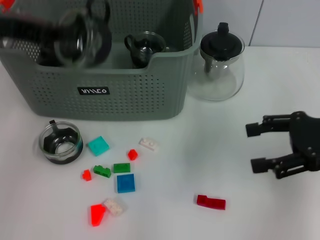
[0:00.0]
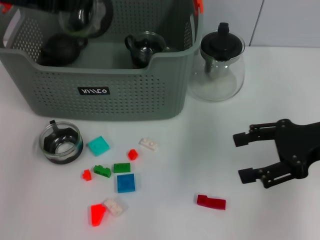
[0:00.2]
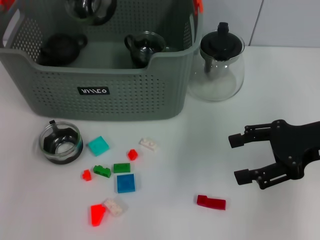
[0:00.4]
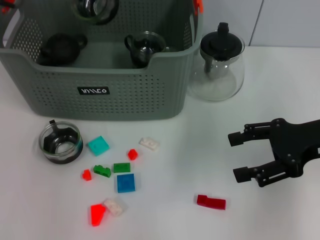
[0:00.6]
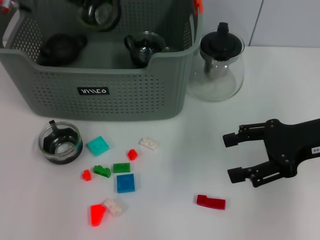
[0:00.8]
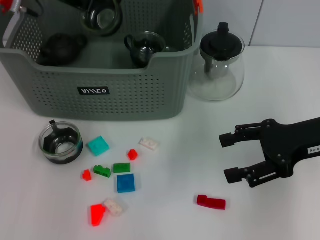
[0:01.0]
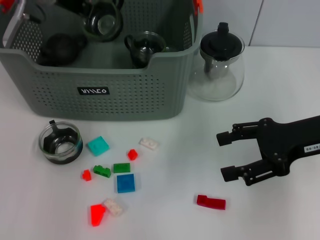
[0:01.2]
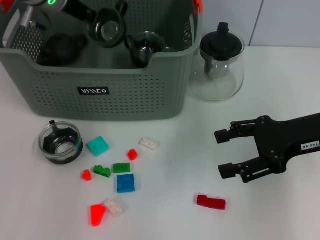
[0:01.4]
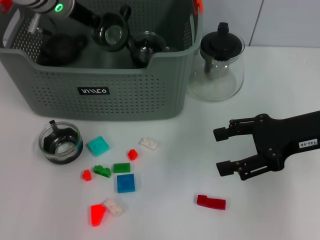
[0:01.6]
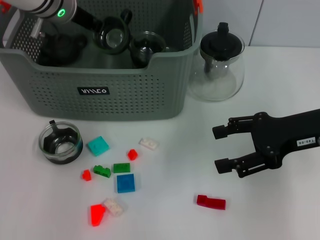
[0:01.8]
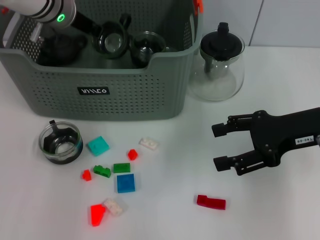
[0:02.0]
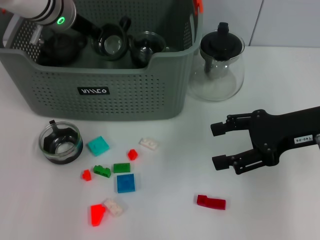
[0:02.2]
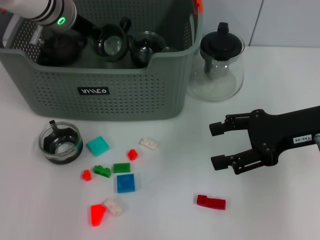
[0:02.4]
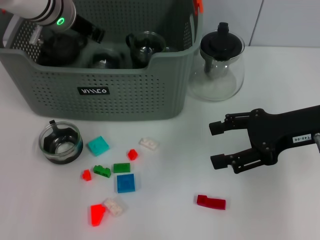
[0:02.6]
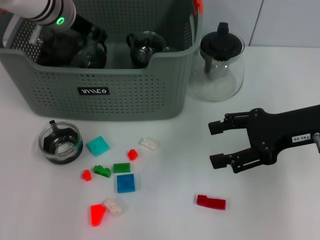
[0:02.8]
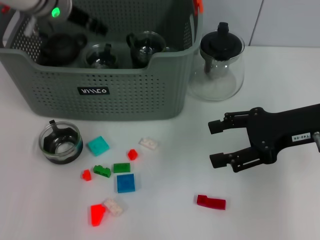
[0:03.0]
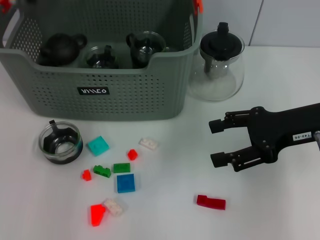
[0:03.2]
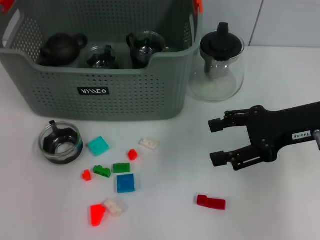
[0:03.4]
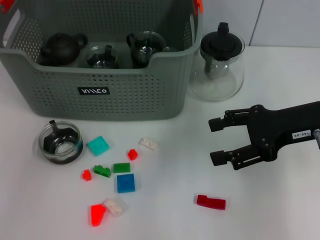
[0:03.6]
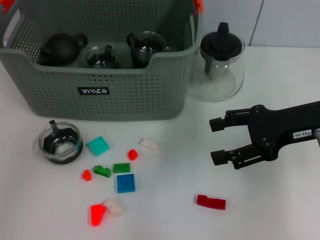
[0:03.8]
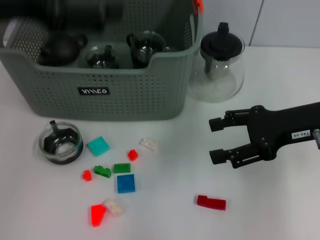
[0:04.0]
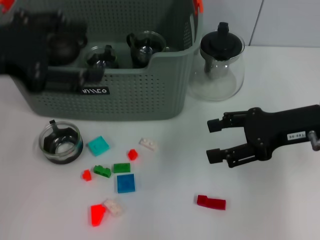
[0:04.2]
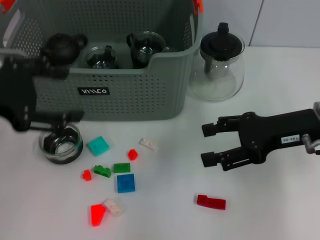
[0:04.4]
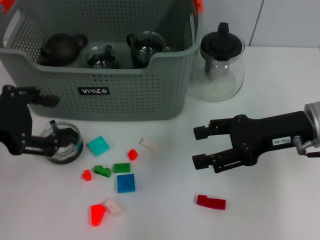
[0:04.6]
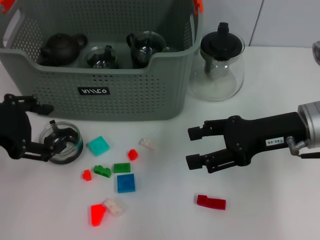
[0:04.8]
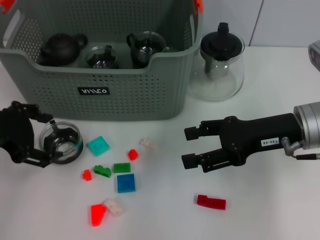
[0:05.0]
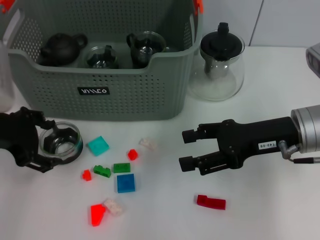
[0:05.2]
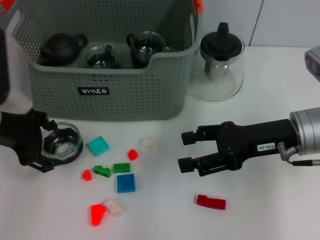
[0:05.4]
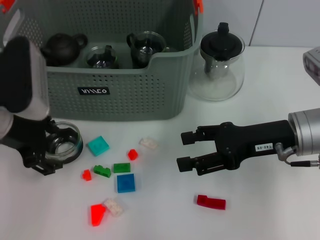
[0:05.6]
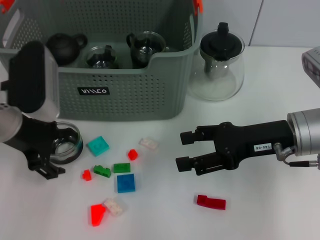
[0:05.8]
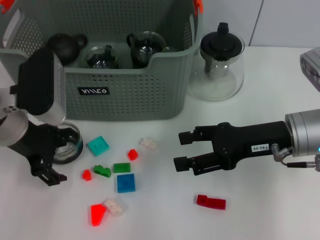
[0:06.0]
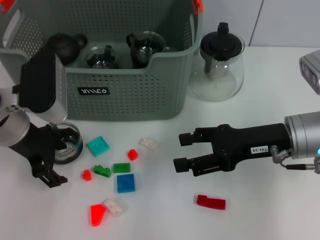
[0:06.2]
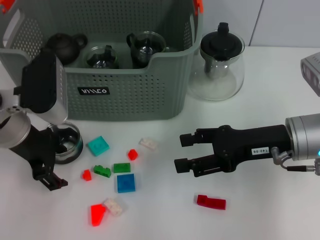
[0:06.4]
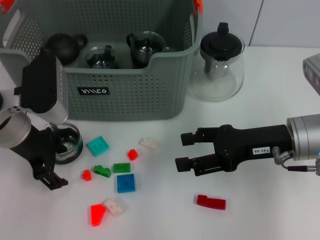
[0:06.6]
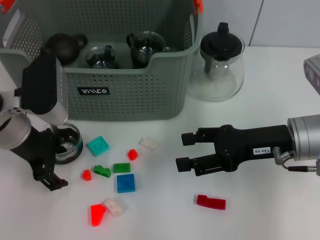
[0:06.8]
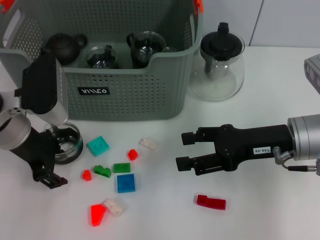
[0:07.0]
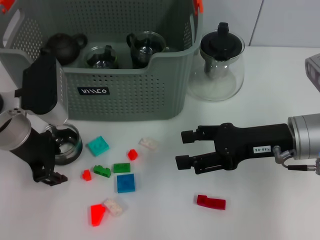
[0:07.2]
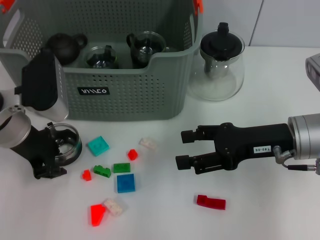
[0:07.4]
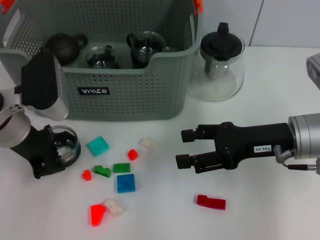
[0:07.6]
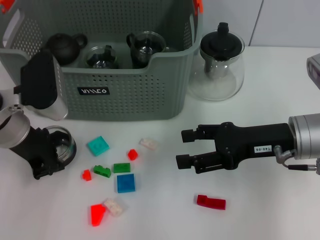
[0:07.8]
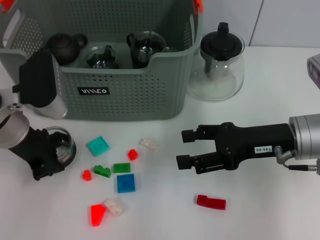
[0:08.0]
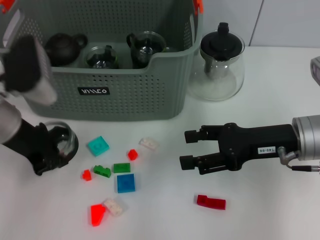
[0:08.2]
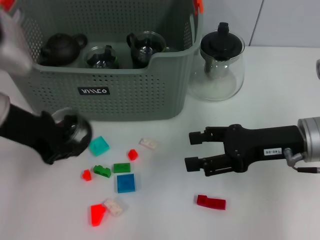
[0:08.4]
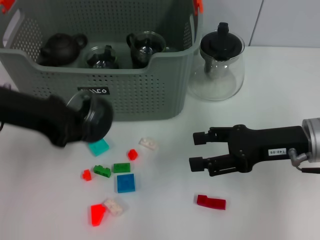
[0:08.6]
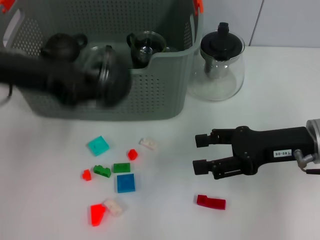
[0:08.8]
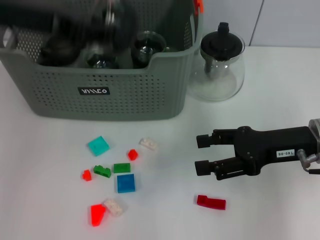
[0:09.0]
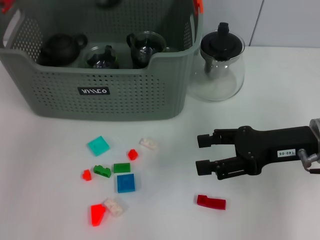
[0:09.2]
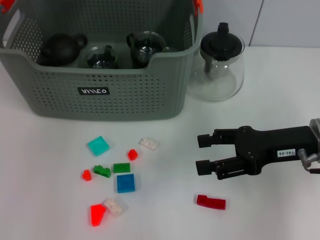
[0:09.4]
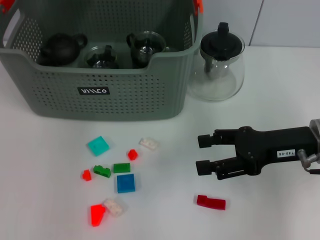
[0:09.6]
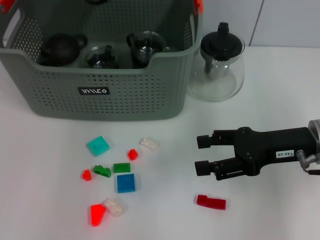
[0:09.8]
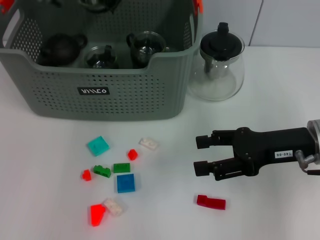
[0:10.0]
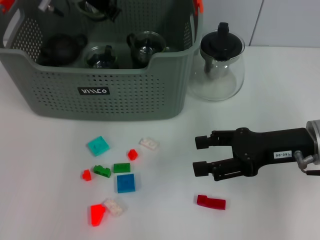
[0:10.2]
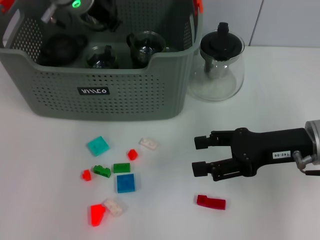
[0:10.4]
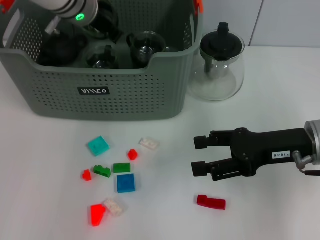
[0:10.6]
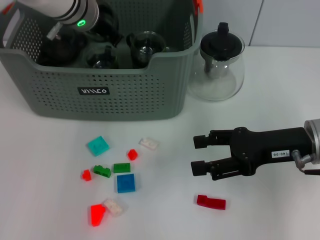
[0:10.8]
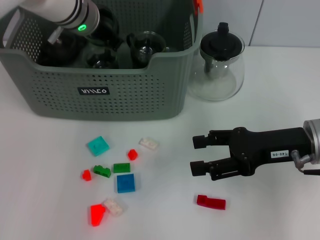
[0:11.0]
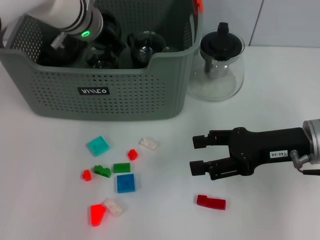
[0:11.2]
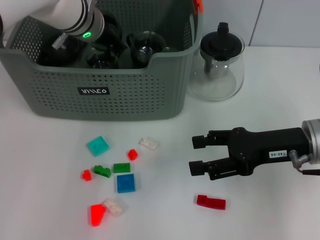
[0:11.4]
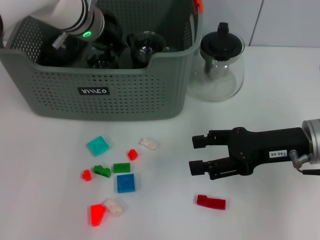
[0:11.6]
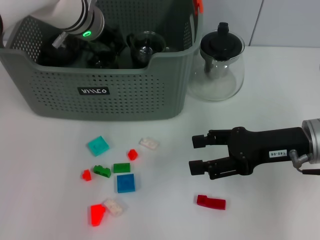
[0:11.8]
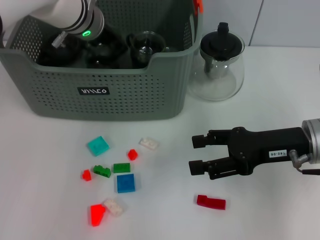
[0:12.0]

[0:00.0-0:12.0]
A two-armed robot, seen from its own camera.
Task of the whole recording: pick up the teacup on the table and place it into the storage bin, pick up the block on the table and place it into the storage bin.
Step, 0:00.0 to 0:03.2: Place the cup in the storage box with left gripper.
Step, 0:03.4 to 0:07.4: Grasp the cup with left gripper.
0:00.0 to 0:01.6: The left gripper goes roughly 20 cm forward, to the right and downward.
0:01.6 to 0:03.0: There are only small adjustments of the grippers.
0:03.0 to 0:04.4: The left gripper heads backward and to the left, covering about 25 cm, and opens.
0:04.4 to 0:06.0: The left gripper travels downward, forward and to the right by some 15 cm.
0:06.0 to 0:07.6: The left gripper closes up.
0:07.6 to 0:09.0: The left gripper heads upward, covering roughly 15 cm.
0:09.0 to 0:10.4: The left gripper moves forward, to the right and downward, roughly 20 cm.
0:10.4 to 0:12.0: The grippers stay close to where they were, moving slightly.

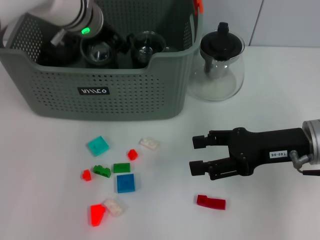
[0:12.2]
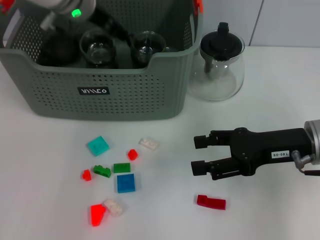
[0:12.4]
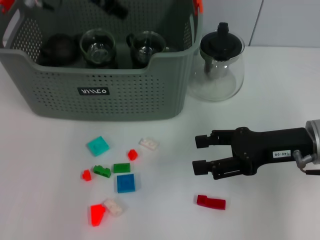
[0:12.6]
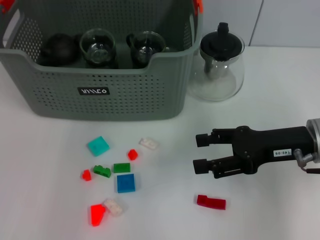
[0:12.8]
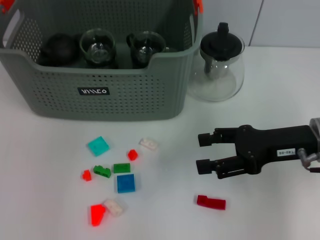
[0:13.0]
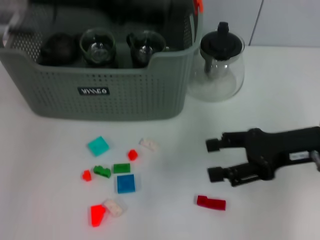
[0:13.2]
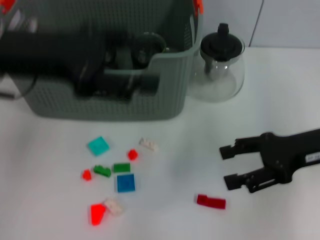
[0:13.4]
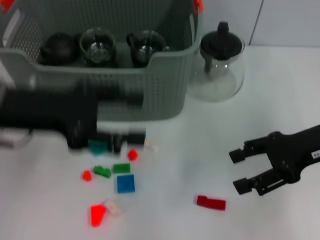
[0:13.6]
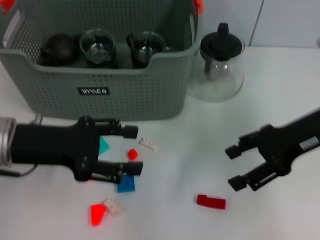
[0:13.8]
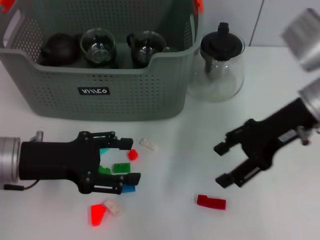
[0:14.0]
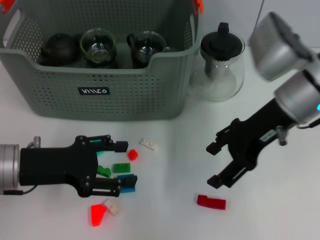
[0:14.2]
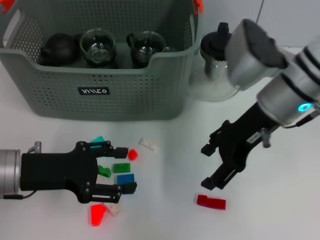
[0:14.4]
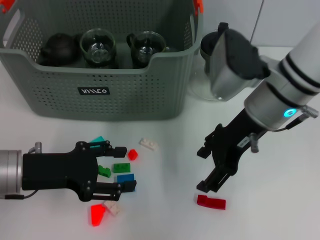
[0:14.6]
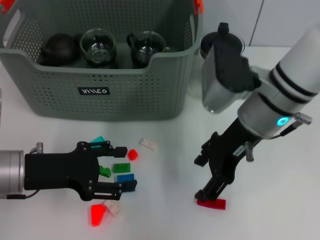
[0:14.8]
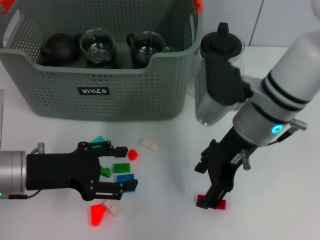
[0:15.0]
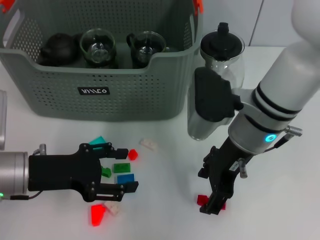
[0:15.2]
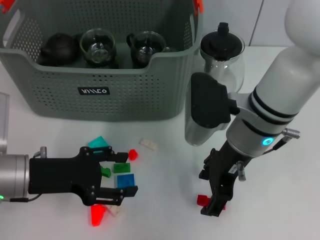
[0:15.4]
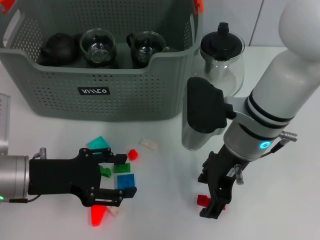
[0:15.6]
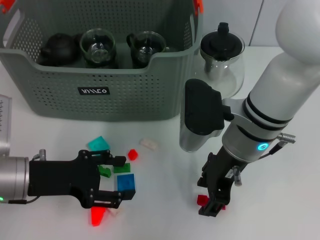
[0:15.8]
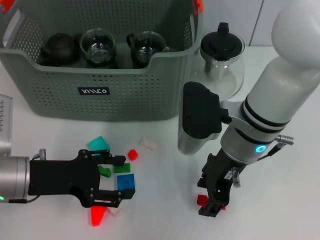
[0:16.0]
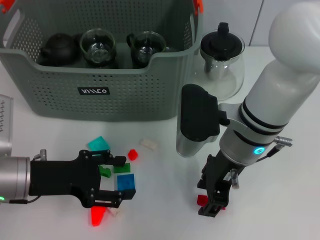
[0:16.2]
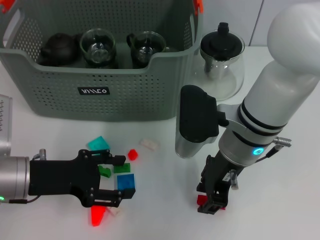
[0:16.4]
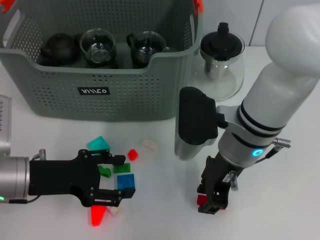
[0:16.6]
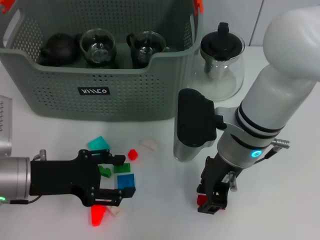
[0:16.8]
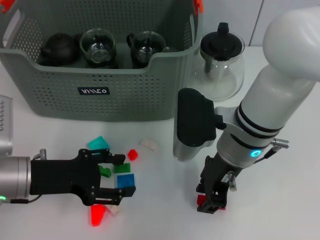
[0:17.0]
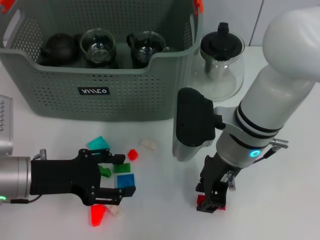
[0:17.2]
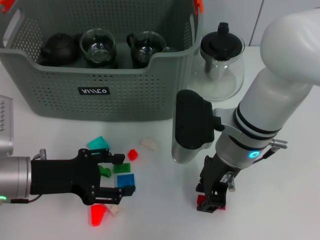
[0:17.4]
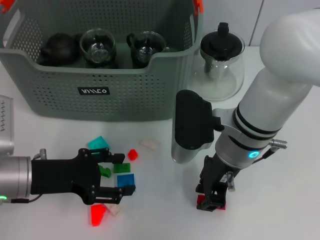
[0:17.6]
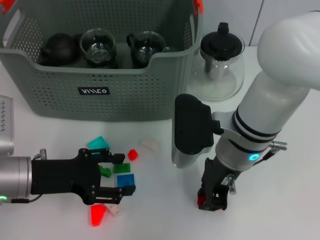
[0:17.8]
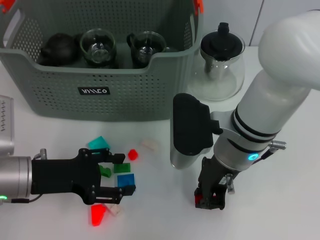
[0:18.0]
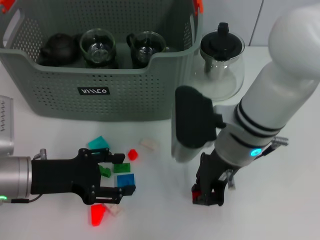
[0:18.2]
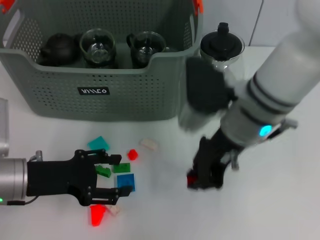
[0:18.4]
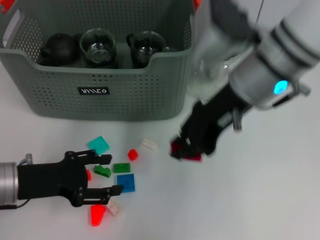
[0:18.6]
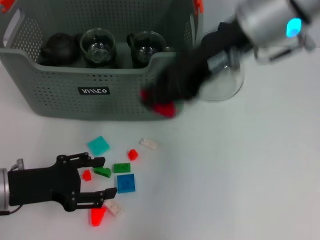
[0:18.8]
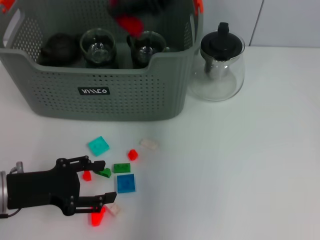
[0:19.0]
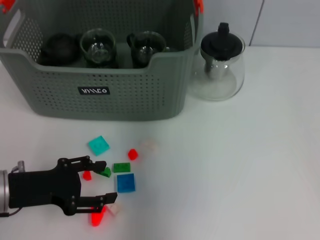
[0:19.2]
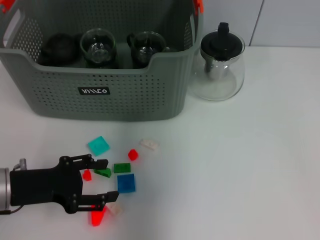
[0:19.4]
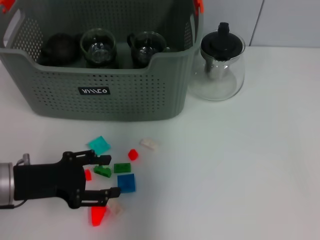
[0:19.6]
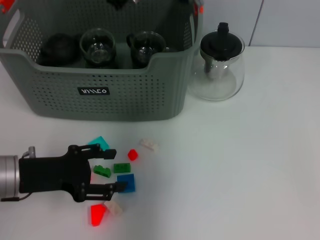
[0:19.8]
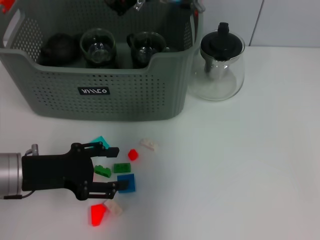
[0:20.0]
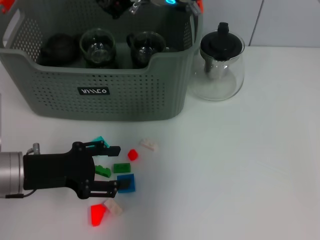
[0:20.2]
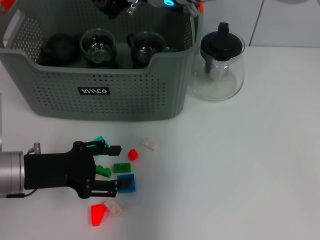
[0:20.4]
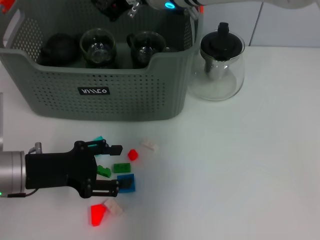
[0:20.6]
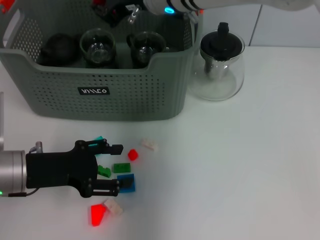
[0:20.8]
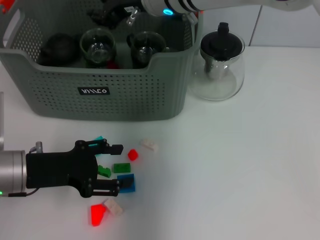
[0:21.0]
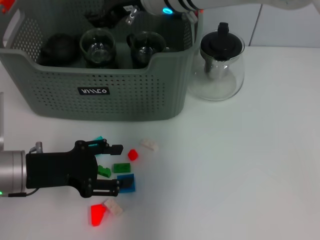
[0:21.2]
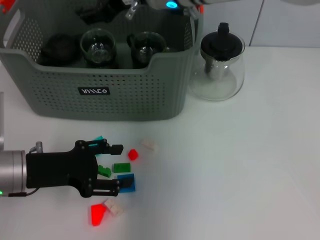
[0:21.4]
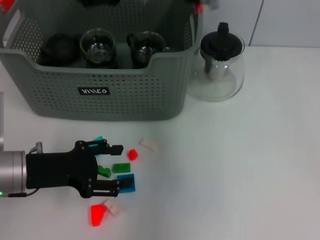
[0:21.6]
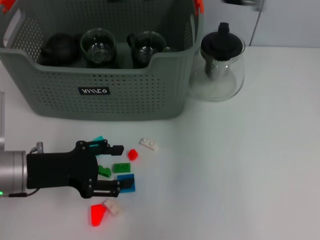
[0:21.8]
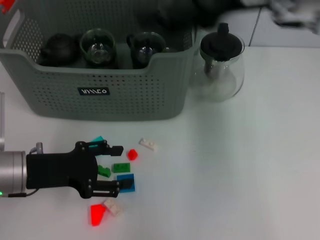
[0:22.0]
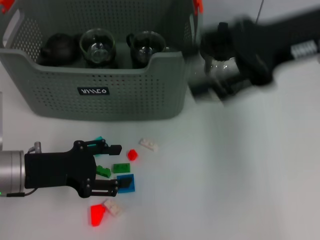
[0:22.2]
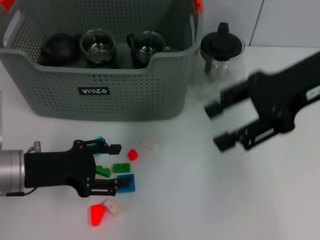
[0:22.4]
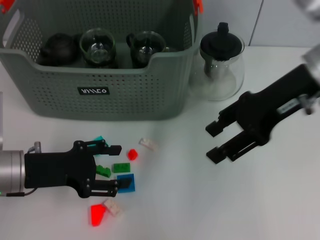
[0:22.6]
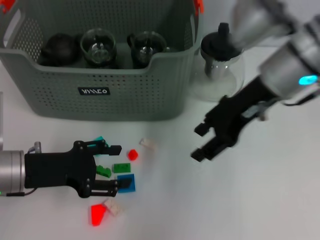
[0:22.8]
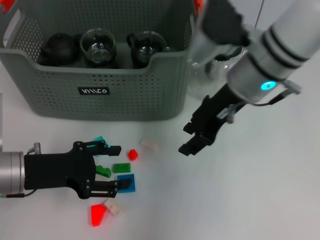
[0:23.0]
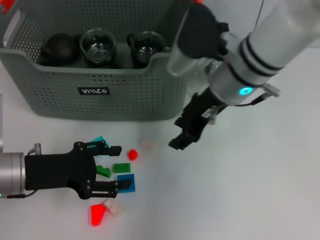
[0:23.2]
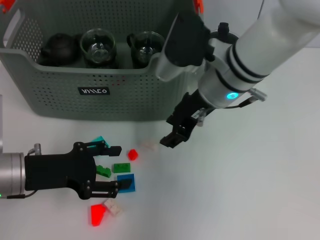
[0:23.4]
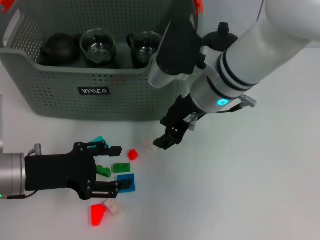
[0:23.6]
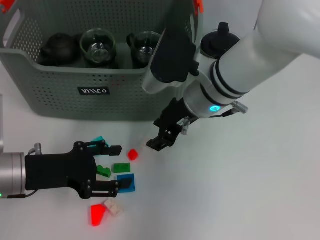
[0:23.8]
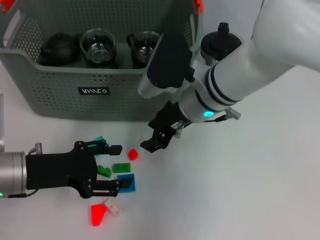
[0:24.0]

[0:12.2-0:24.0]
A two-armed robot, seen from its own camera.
Task of the whole recording: pick up the teacup on the table and place it into the storage bin, pick up the block on the table and place it into the storage bin.
Step, 0:12.8 to 0:18.0: Grasp the red block with right gripper.
Step, 0:18.2 to 0:21.8: Place the red block in the storage box with right gripper.
0:12.2 to 0:13.6: The left gripper goes some 20 cm backward and to the left, and opens up. Meanwhile the right gripper moves about 5 cm.
0:13.6 to 0:15.2: The left gripper moves downward, some 10 cm, while the right gripper is displaced to the left by about 15 cm.
0:15.2 to 0:16.6: The right gripper closes up.
0:16.6 to 0:18.2: The right gripper closes.
0:18.2 to 0:19.6: The right gripper is displaced forward, upward and to the left by approximately 20 cm.
0:19.6 to 0:21.0: The grippers move only a little.
0:21.0 to 0:22.6: The right gripper heads to the right and backward, covering approximately 20 cm, and opens up.
0:22.6 to 0:24.0: The right gripper goes roughly 15 cm to the left and downward.
